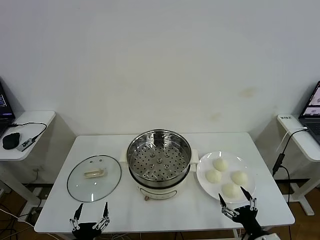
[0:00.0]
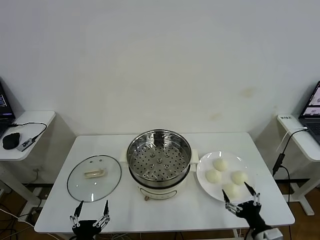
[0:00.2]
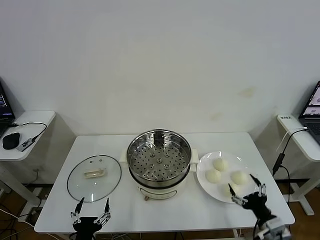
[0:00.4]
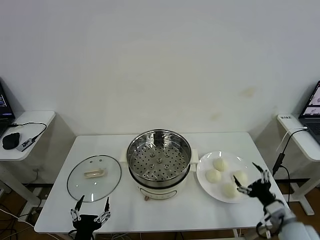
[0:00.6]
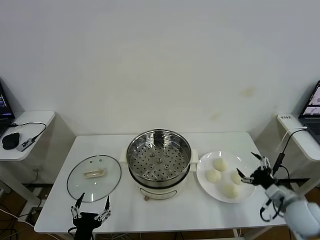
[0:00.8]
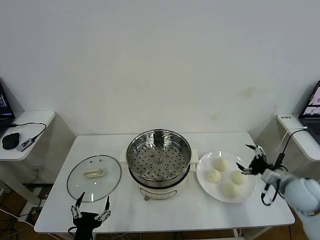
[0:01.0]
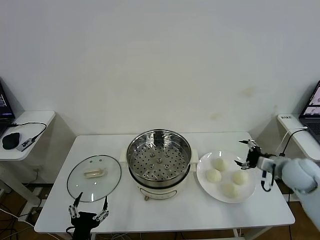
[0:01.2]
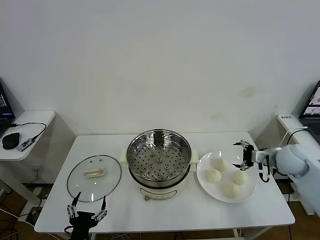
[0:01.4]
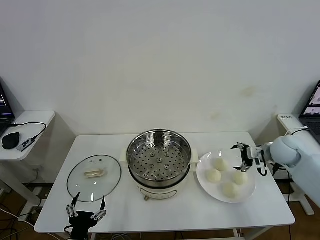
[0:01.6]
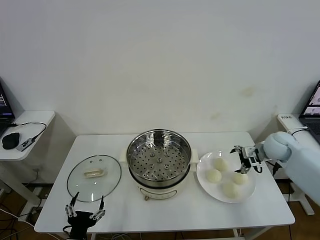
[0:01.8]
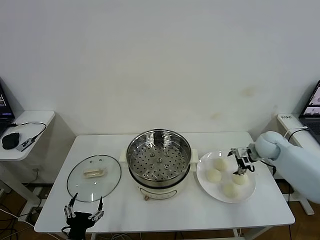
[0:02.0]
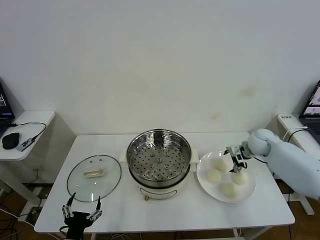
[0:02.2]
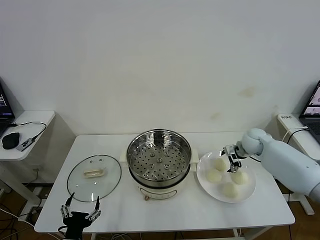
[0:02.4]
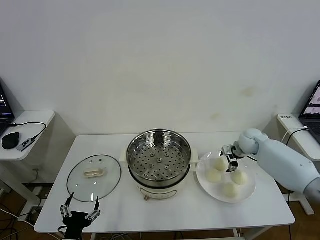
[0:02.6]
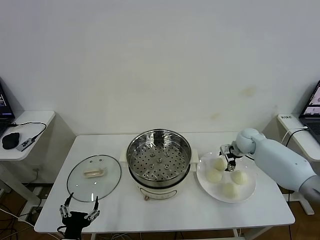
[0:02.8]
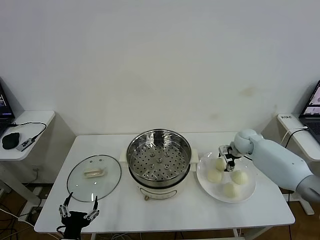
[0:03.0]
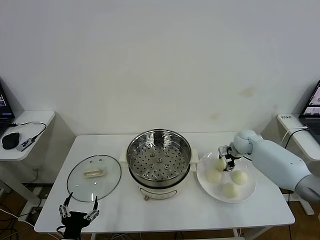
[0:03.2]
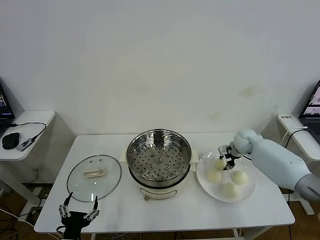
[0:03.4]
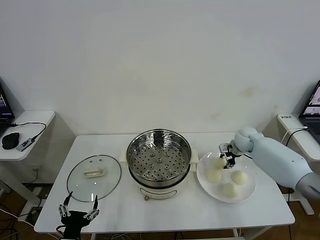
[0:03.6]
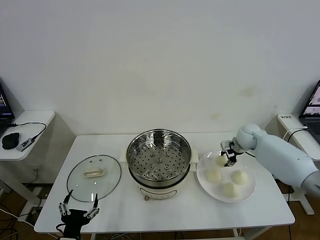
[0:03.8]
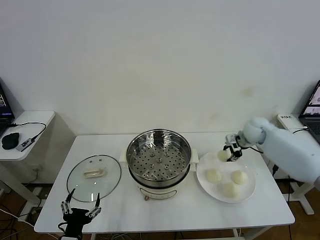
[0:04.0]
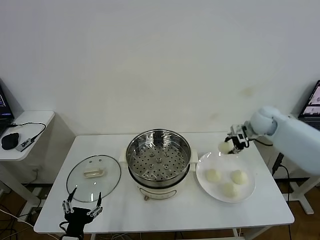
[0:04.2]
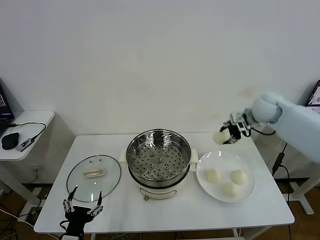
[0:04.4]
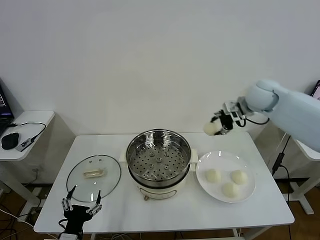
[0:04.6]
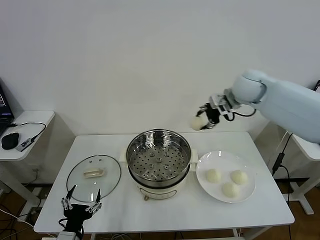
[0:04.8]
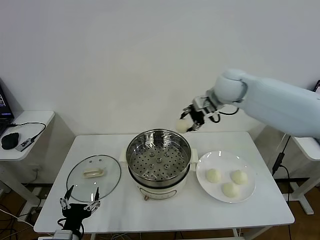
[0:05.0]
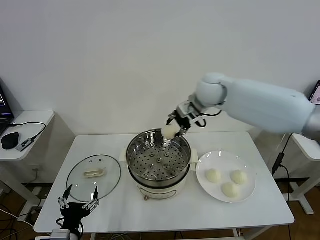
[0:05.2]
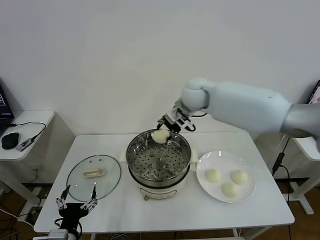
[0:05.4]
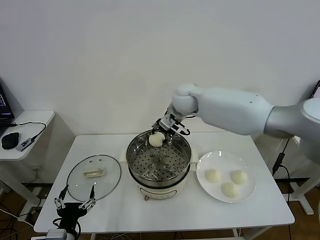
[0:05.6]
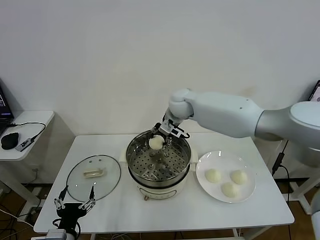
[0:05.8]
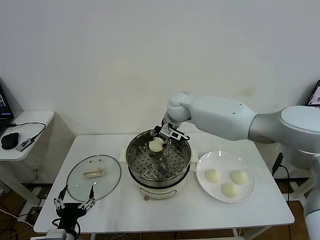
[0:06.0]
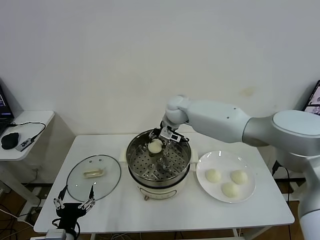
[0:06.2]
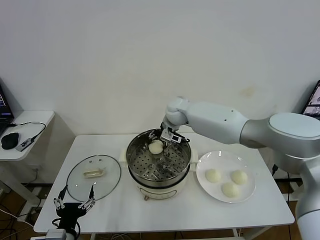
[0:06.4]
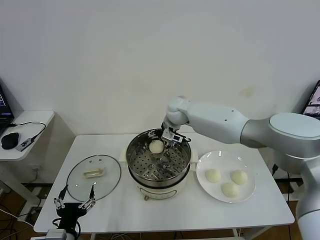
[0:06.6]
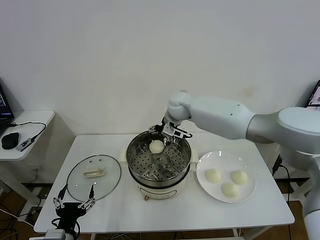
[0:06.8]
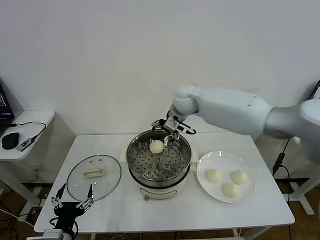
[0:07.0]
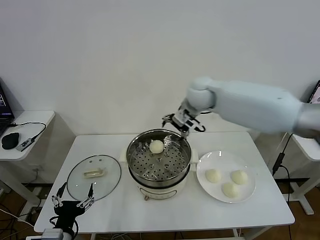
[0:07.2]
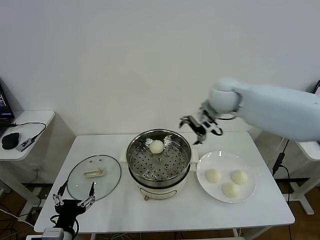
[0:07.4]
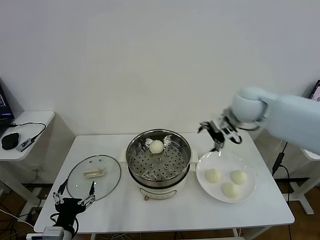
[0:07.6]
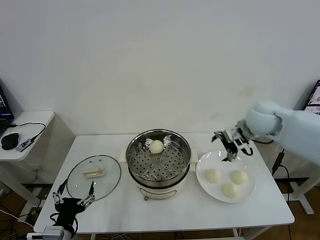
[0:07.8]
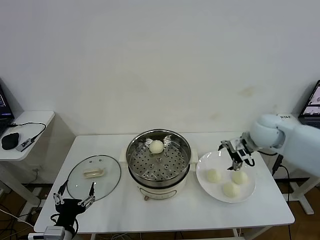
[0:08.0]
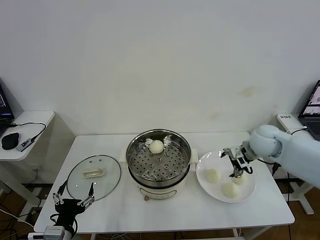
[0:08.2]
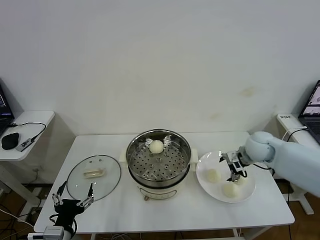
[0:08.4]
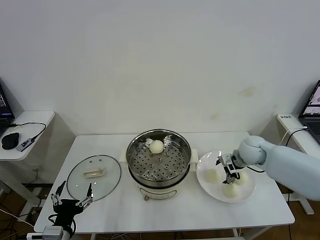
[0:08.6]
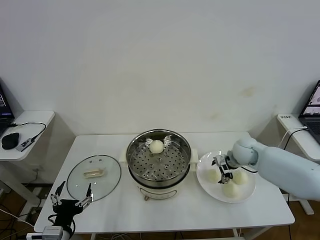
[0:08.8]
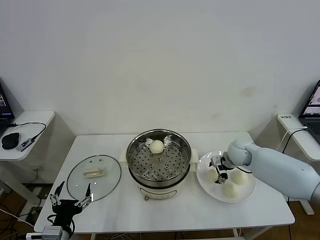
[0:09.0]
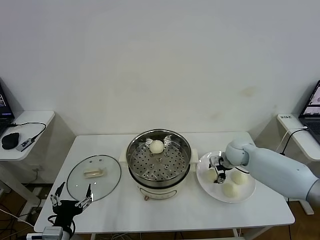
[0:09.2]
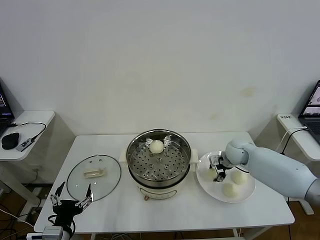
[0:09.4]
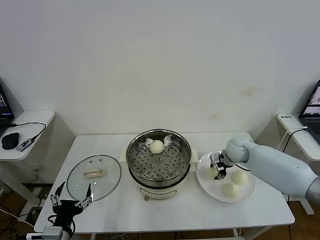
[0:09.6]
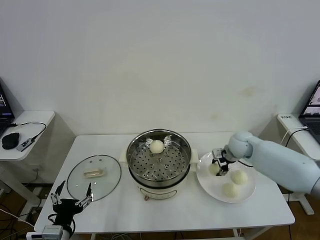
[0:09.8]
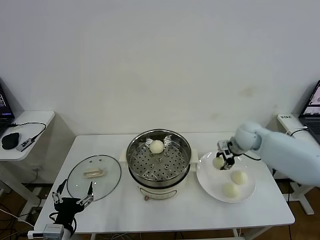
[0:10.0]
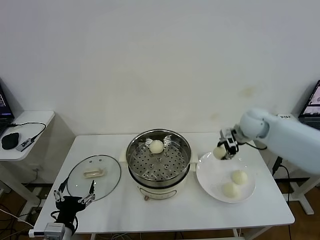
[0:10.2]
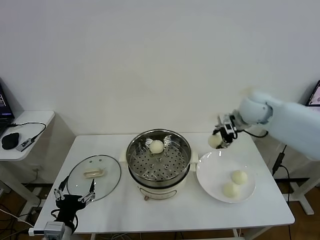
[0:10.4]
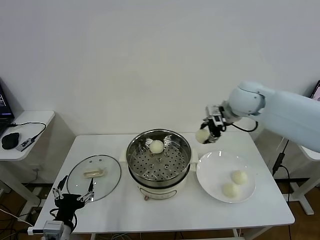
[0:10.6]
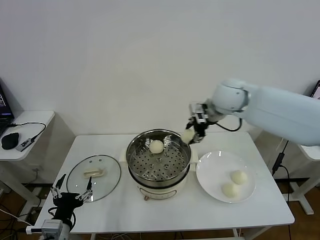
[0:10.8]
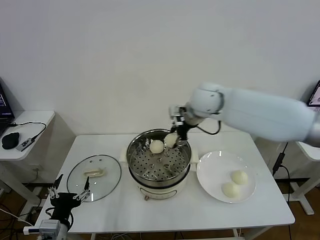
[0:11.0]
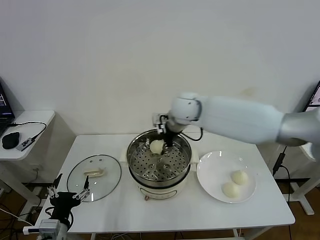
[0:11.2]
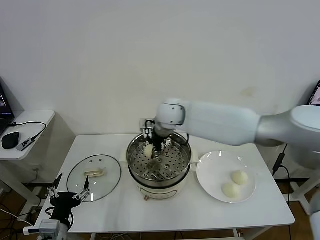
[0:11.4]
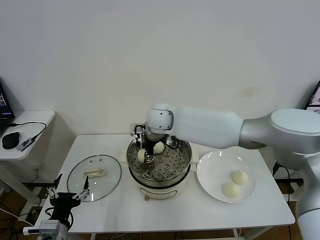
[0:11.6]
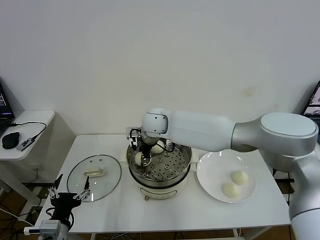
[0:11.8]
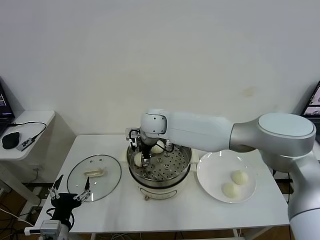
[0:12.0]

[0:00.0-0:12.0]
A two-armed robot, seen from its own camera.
Task of the whole recording: take steamed baozi put them in steamer then cover it.
Step, 0:00.0 to 0:03.4: Grasp the baozi in the plate with right gripper.
Step, 0:03.6 to 0:06.6: Place the baozi on the steamer with right gripper.
Step, 0:06.8 to 0:09.4: Grasp the baozi in the plate with right gripper.
0:01.6 to 0:03.0: The right gripper travels forward, downward and to the left by roughly 15 cm, and closes.
0:03.0 to 0:04.4: The right gripper is displaced upward by some 20 cm, and closes.
0:04.4 to 0:06.0: The right gripper goes approximately 25 cm to the left.
0:06.0 to 0:07.6: The right gripper goes roughly 25 cm to the right and backward, and opens up.
0:07.6 to 0:09.0: The right gripper moves downward, some 20 cm.
0:09.0 to 0:10.4: The right gripper heads upward, covering approximately 20 cm, and closes its fingers.
0:10.4 to 0:12.0: The right gripper moves to the left, about 30 cm, and opens its fingers.

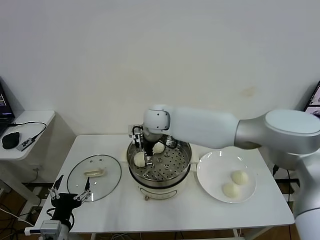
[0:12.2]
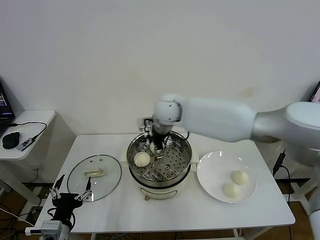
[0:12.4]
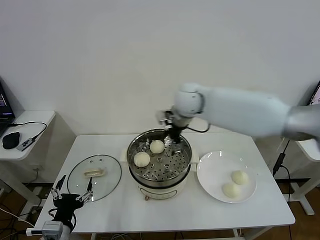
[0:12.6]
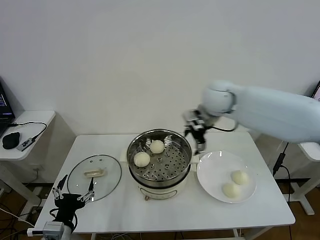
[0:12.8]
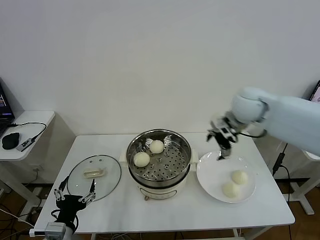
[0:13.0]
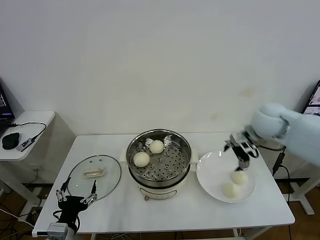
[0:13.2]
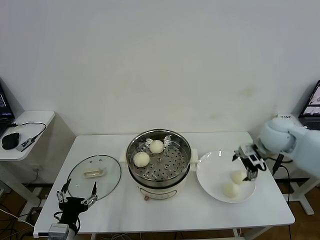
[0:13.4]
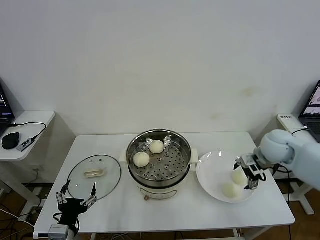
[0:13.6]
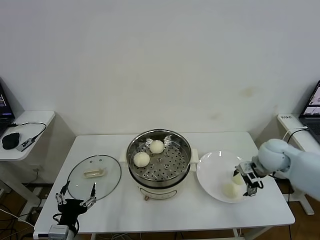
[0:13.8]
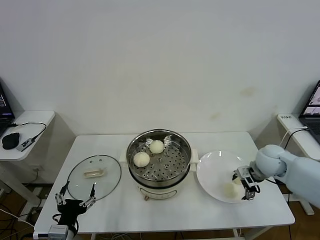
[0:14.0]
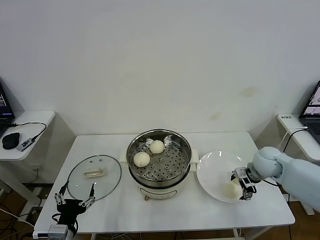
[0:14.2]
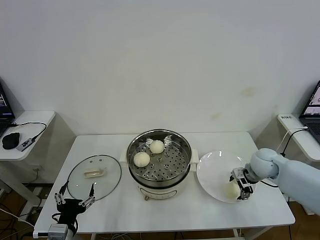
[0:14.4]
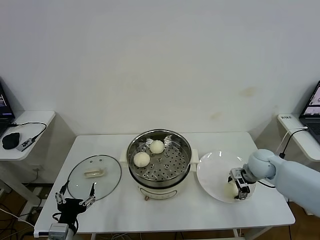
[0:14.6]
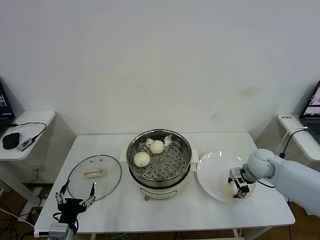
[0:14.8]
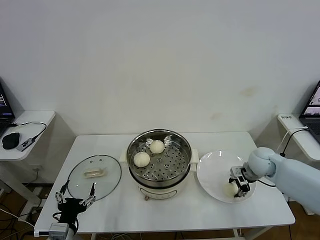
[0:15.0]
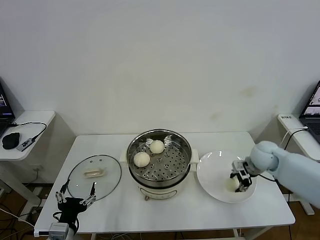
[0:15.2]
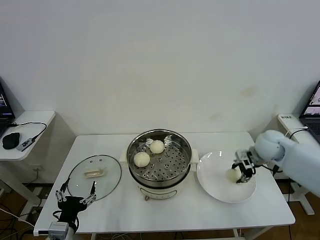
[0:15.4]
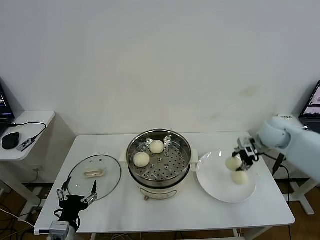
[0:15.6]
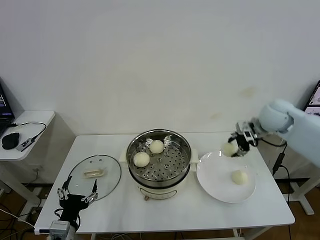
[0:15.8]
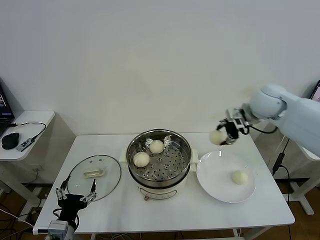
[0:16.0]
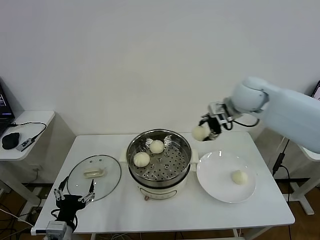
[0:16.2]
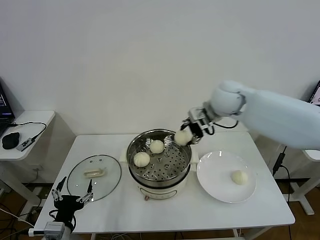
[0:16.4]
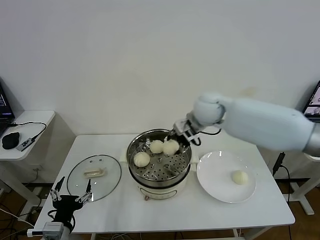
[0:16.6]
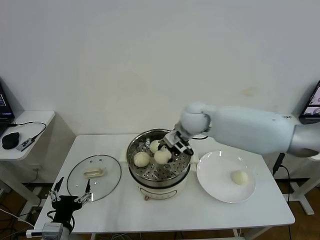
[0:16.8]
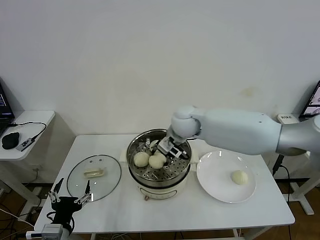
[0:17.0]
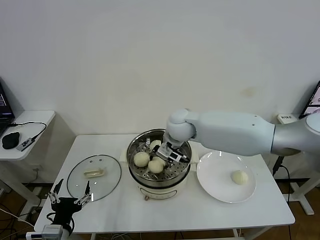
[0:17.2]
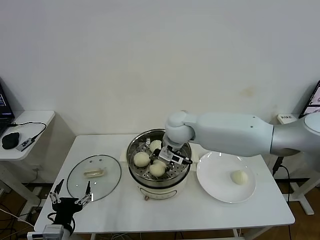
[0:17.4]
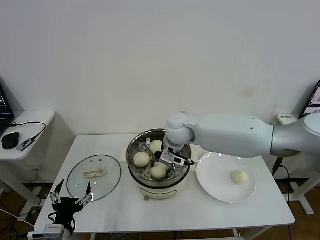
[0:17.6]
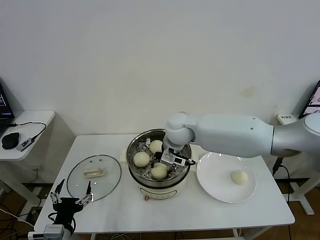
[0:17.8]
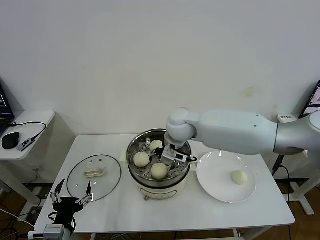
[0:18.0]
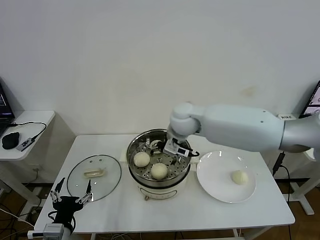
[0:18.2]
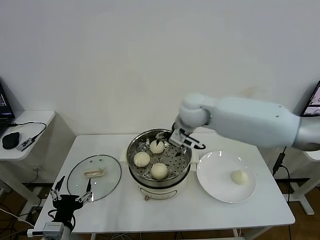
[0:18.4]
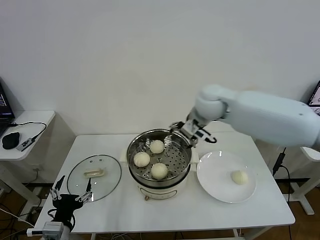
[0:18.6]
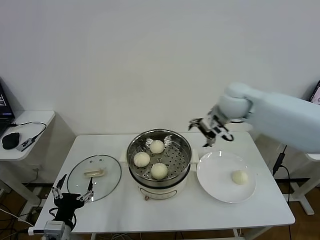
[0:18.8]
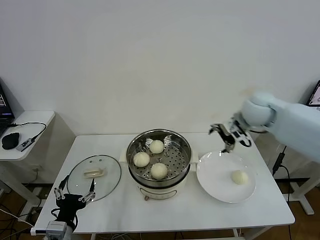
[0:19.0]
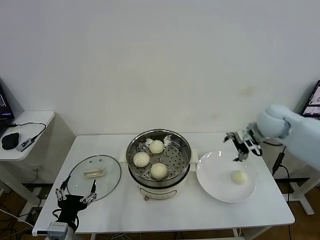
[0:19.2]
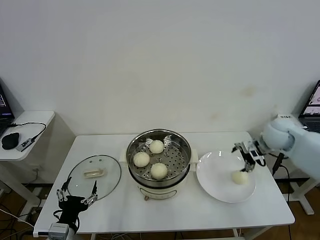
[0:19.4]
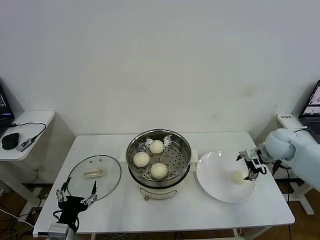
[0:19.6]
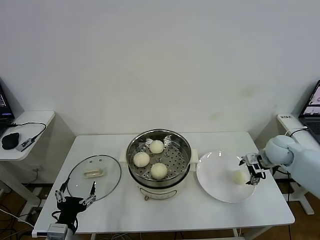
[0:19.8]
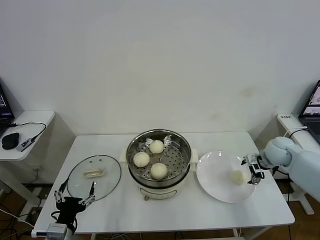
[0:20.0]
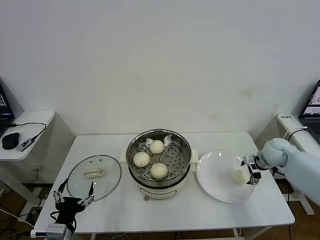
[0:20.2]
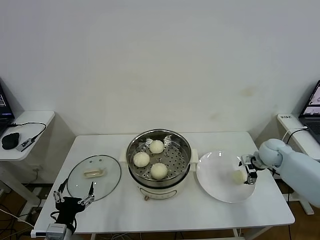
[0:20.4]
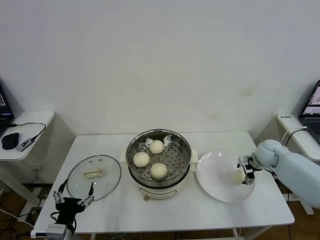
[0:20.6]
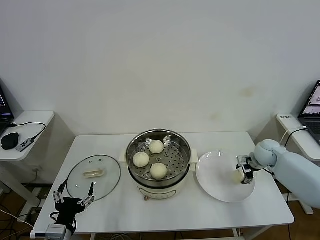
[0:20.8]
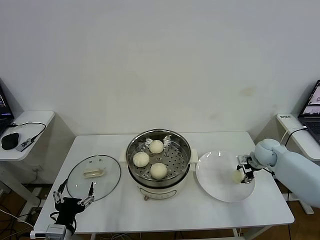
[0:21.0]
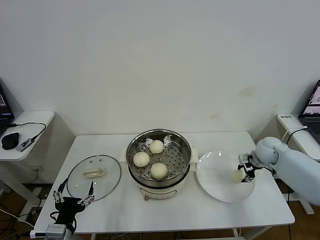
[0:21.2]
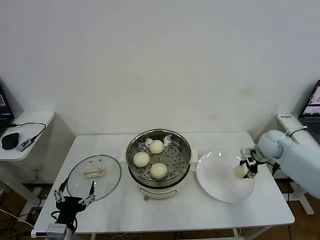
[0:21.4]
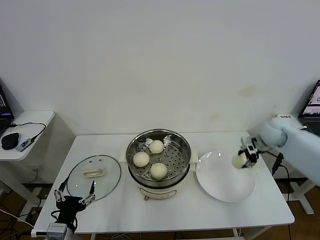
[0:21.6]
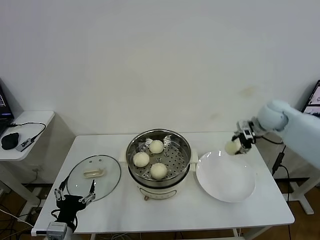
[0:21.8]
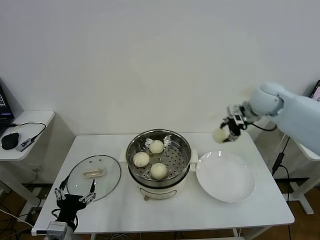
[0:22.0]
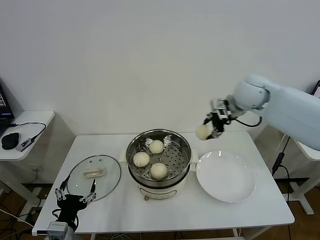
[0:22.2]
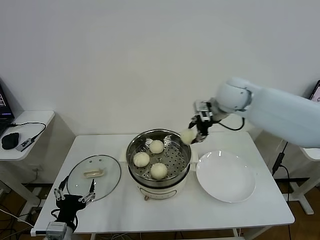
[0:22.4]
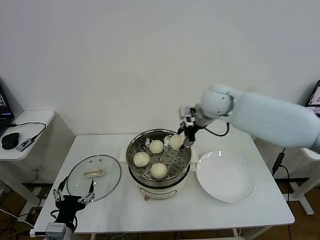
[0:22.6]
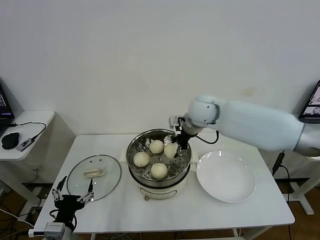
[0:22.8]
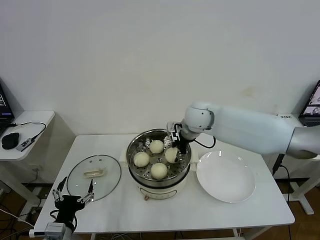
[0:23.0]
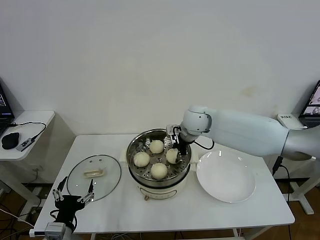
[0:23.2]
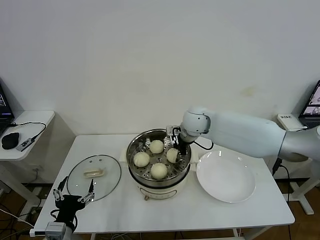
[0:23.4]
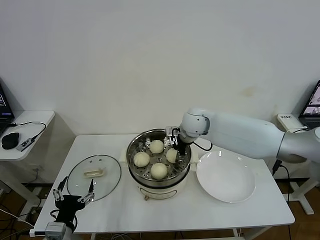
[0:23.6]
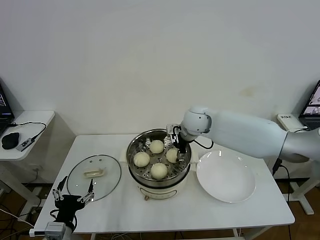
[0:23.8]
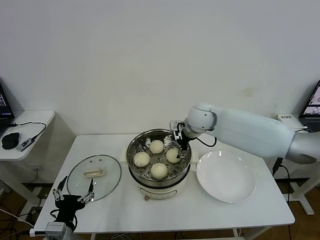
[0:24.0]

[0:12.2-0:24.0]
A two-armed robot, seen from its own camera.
Task of the whole recording: take steamed baozi put them in steamer then cover it.
Step, 0:12.4 to 0:15.0: Grasp the baozi in the plate with right gripper.
Step, 0:15.2 to 0:18.0: Place the baozi on the steamer with right gripper.
Step, 0:18.2 to 0:21.2: Grasp the baozi in the plate with right gripper.
Step, 0:21.4 to 0:23.8: Place the baozi on the steamer with right gripper.
0:12.2 to 0:13.6: The right gripper is displaced to the right by roughly 35 cm.
0:13.6 to 0:15.2: The right gripper closes.
0:15.2 to 0:16.6: The right gripper shifts about 25 cm to the left and upward.
0:16.6 to 0:18.2: The right gripper goes roughly 5 cm to the left, and opens up.
0:18.2 to 0:19.6: The right gripper travels to the right by some 30 cm.
0:19.6 to 0:21.0: The right gripper moves downward, roughly 10 cm, and closes up.
0:21.0 to 0:22.6: The right gripper travels to the left and upward by some 35 cm.
0:22.6 to 0:24.0: The right gripper moves downward, roughly 5 cm, and opens up.
